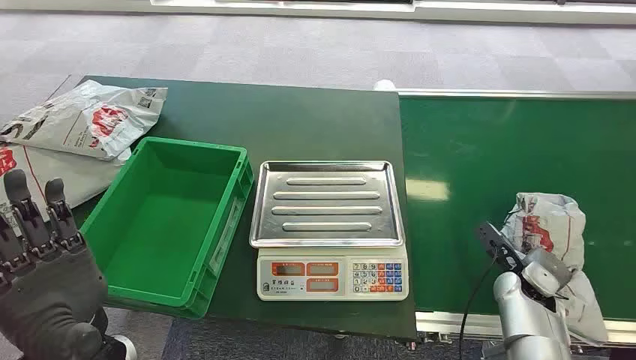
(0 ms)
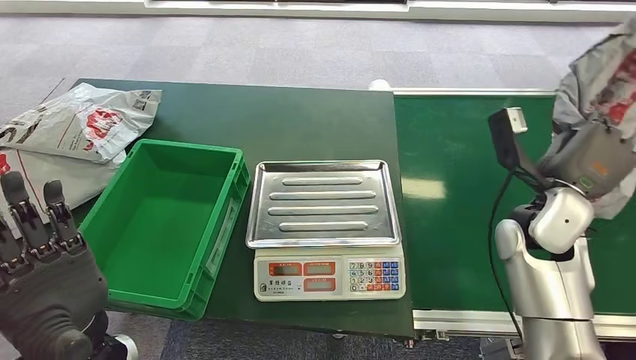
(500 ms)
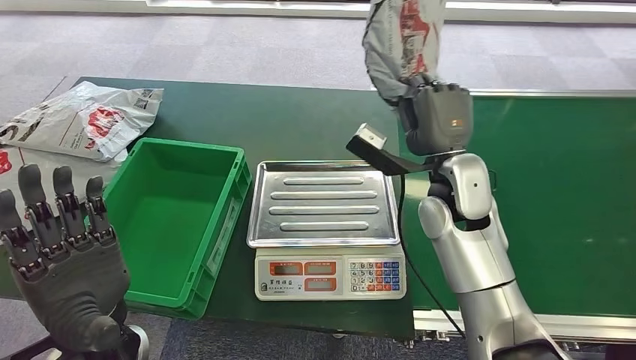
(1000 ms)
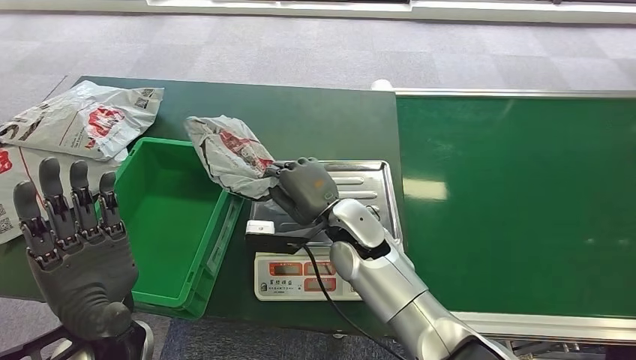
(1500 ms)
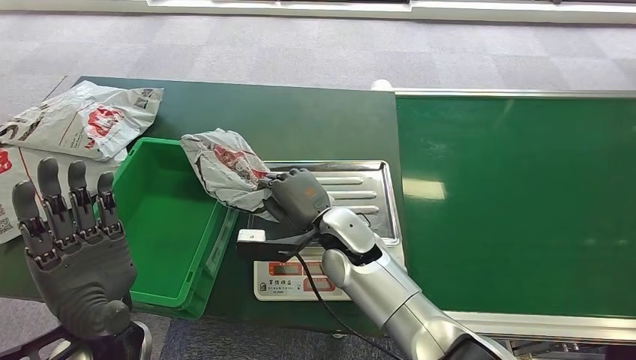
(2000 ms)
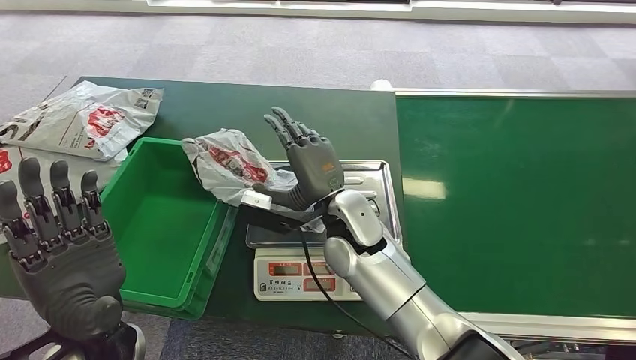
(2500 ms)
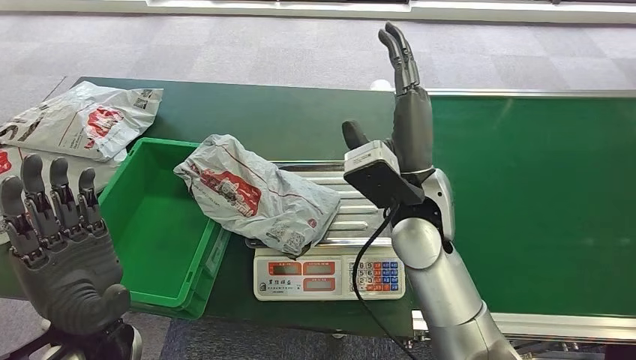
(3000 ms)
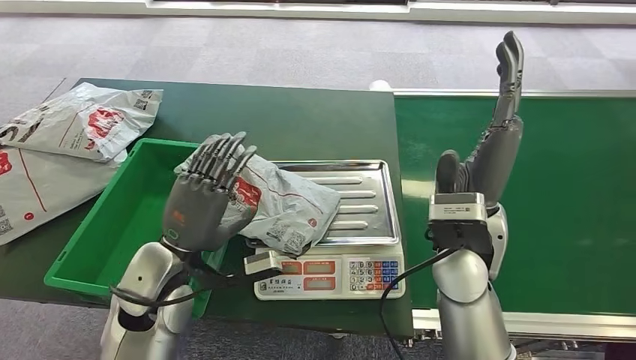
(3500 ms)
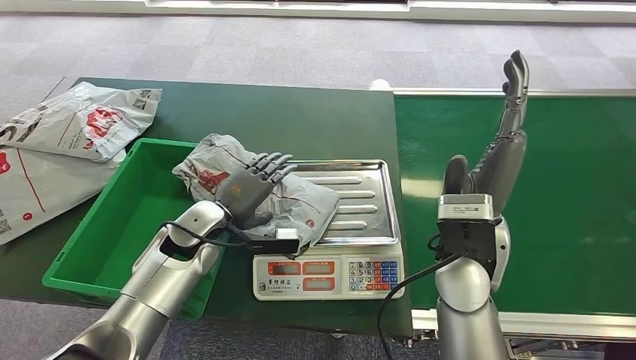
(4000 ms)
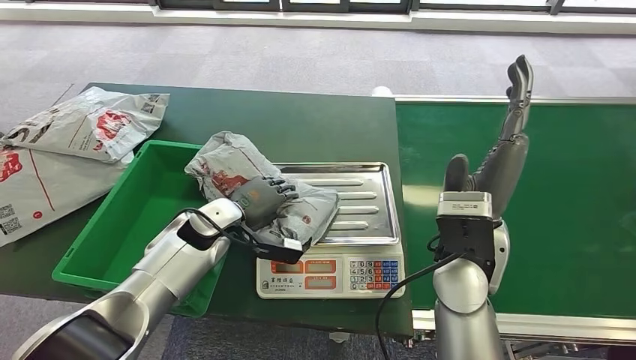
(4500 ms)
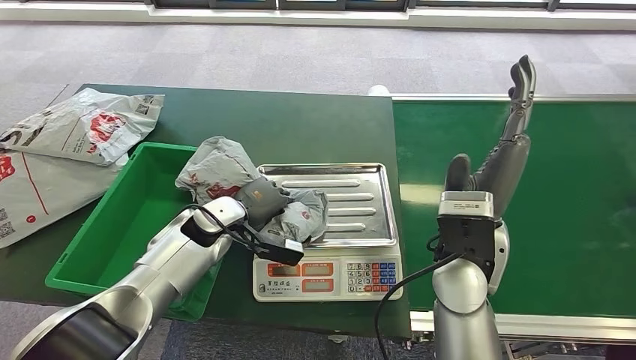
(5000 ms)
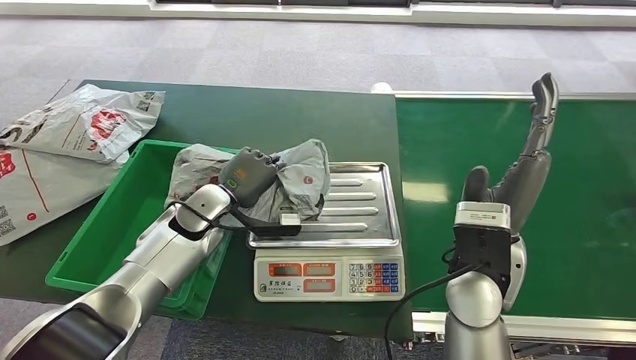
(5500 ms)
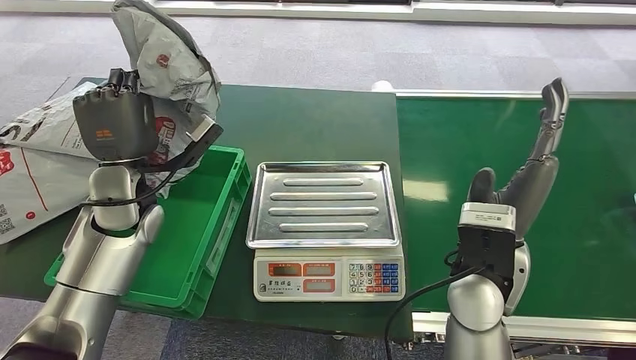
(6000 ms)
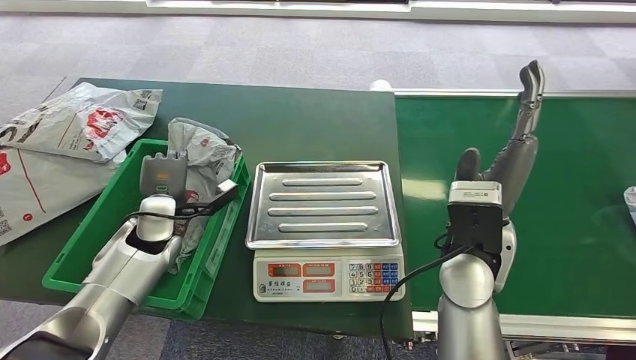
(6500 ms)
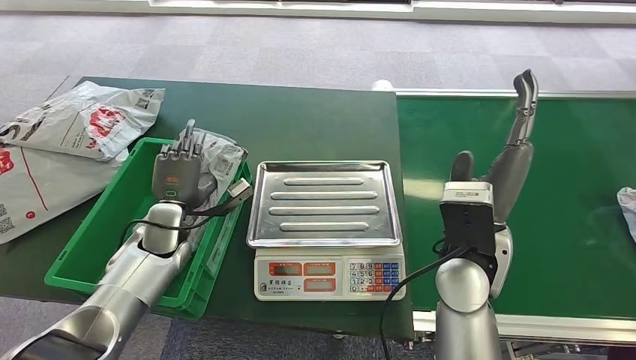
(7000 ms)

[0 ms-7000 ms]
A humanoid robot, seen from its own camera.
Step, 0 ms to 500 ms: Pick up the package from the conveyor belt.
Step, 1500 ms to 3000 ms: Place the package onto the inbound machine.
Step, 4000 ms to 5500 ms: Pick up the package from the inbound machine.
Step, 6500 ms to 7000 ms: Place the package into the parcel locker.
